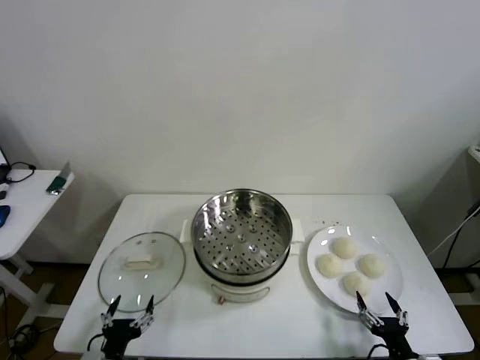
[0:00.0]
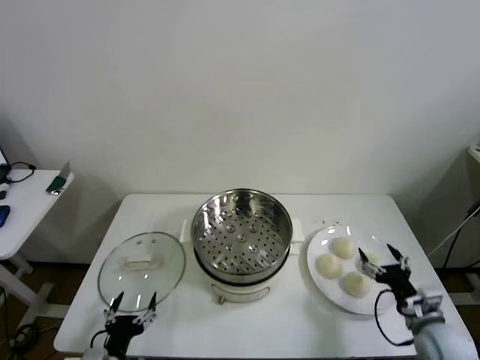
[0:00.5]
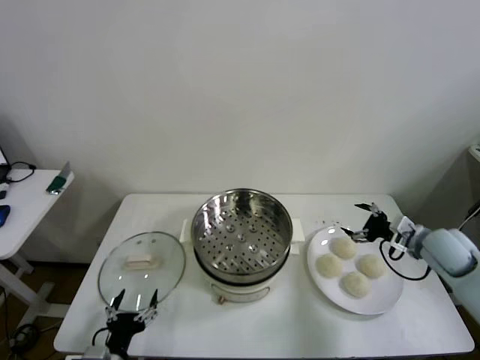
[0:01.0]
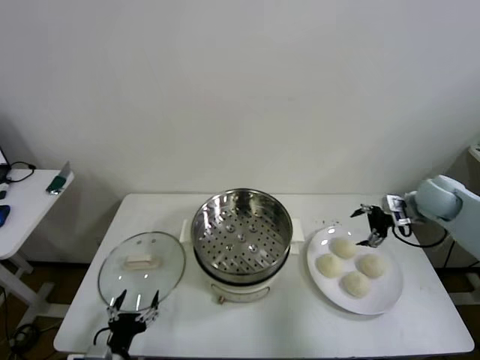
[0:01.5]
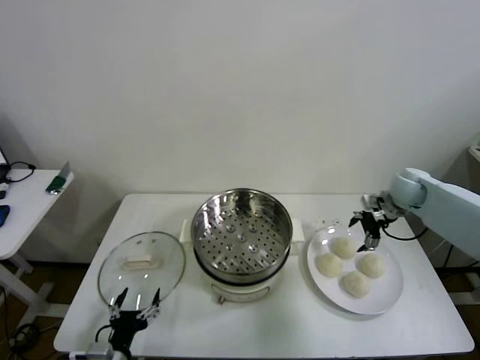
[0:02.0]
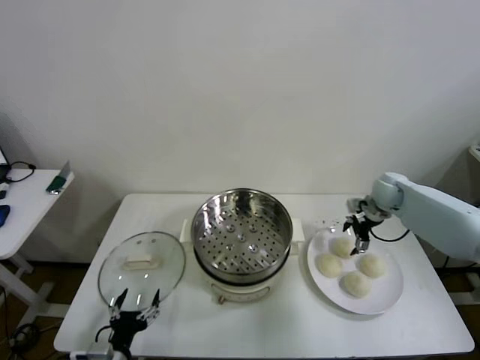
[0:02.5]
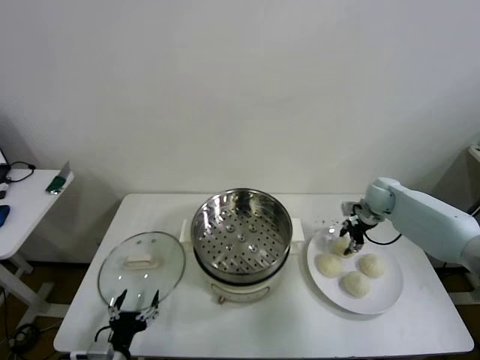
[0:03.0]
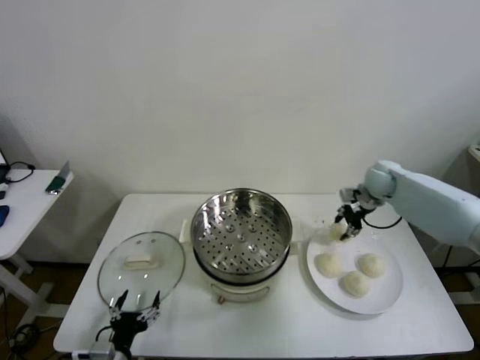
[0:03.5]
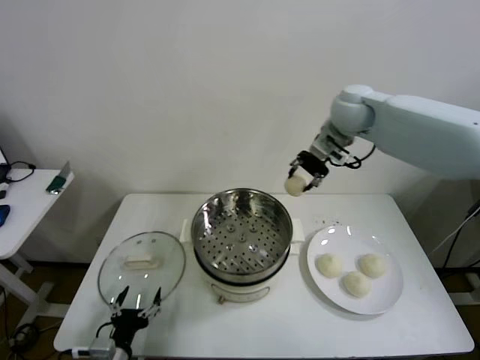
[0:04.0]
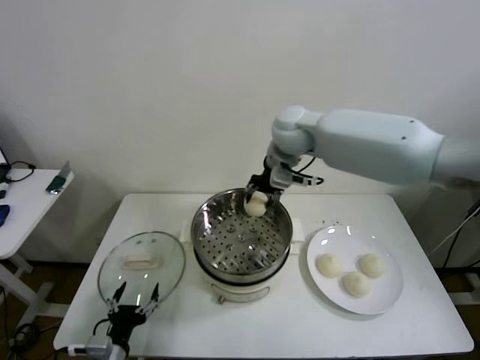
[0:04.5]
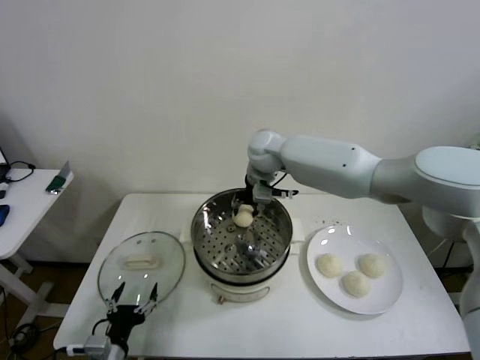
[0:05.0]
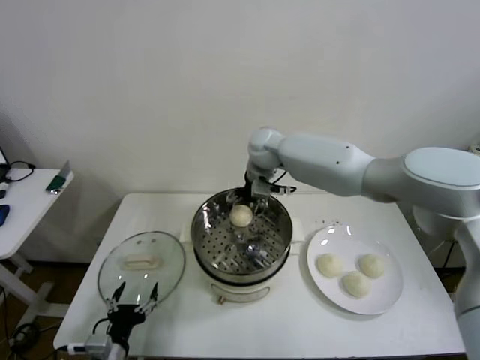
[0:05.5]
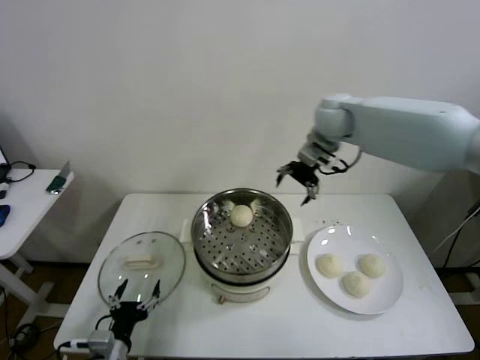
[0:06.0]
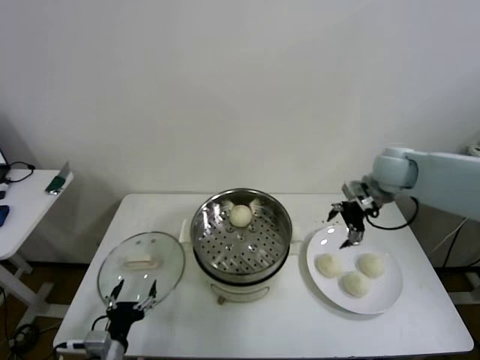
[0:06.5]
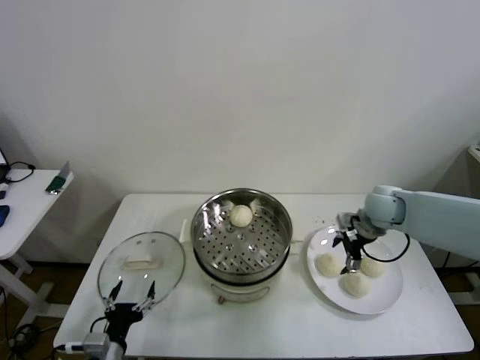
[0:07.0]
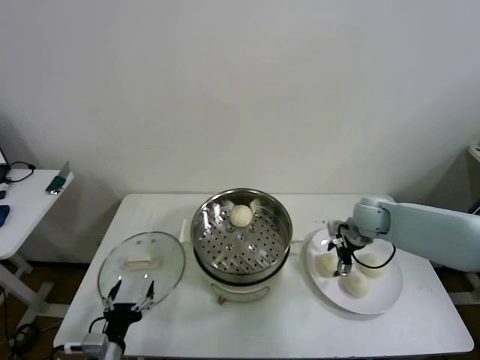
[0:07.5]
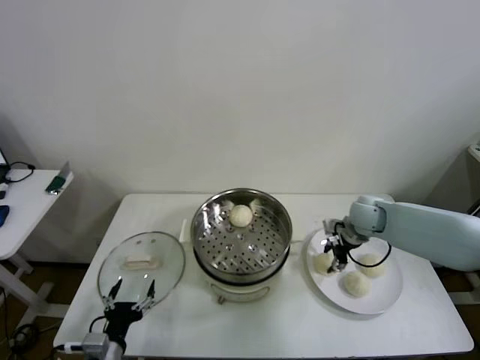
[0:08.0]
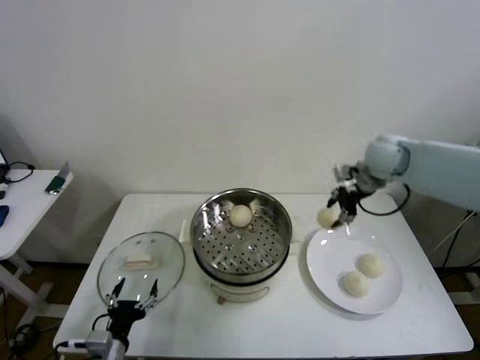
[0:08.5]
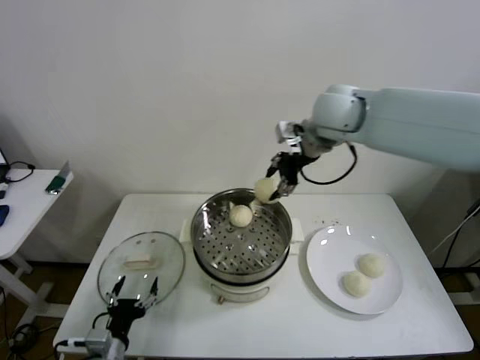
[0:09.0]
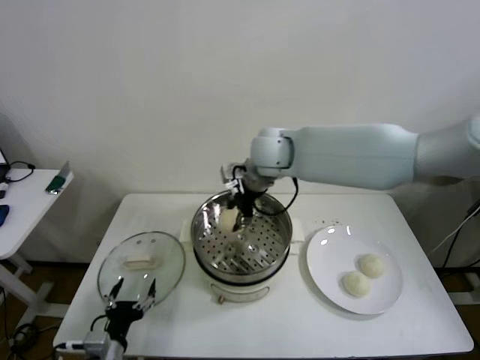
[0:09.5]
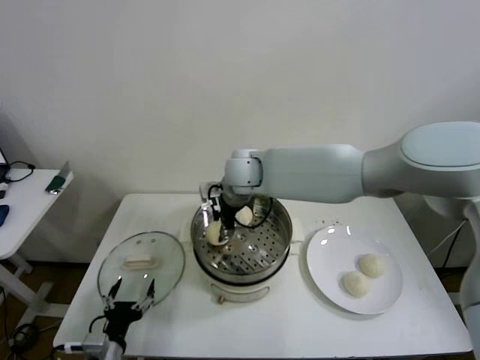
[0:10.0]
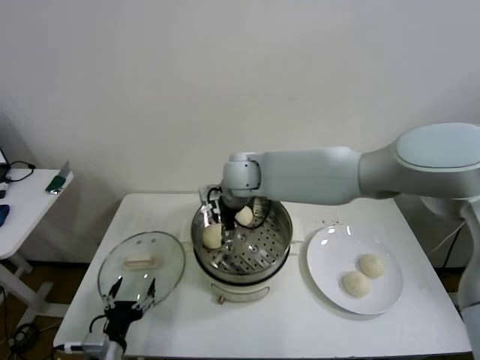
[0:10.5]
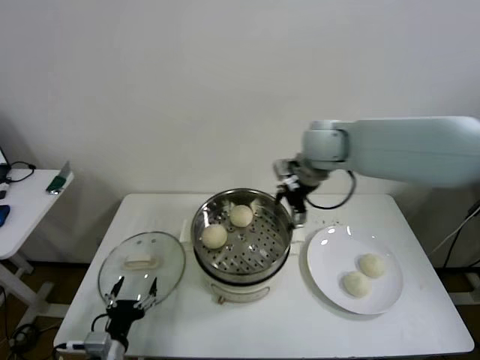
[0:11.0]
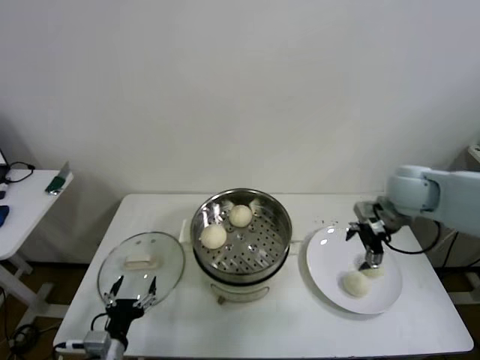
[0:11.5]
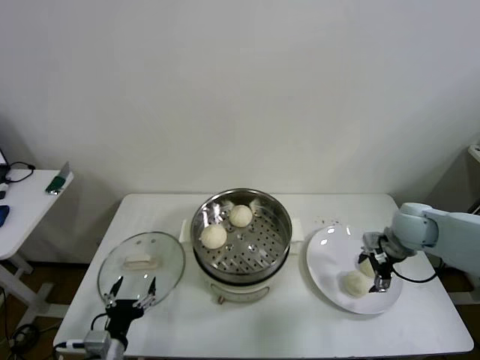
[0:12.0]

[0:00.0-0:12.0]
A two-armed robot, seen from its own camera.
Step, 0:00.0 to 0:02.5: Grasp the baozi in the plate with right gripper.
Step, 0:03.0 to 0:05.5: Place the baozi on the steamer with right gripper.
Step, 0:06.0 to 0:07.5: Grasp the baozi in the plate with right gripper.
Step, 0:08.0 to 0:10.5: Place the baozi on the steamer with right gripper.
0:02.0 to 0:04.0: The right gripper goes roughly 30 cm upward and to the left, and closes its fingers.
0:04.0 to 0:06.0: The right gripper moves some 15 cm to the left and comes back, and opens its fingers.
0:06.0 to 0:08.0: The right gripper heads downward, covering roughly 20 cm, and closes its fingers.
0:08.0 to 0:10.0: The right gripper moves to the left, about 30 cm.
0:10.0 to 0:12.0: The right gripper moves to the right, approximately 40 cm, and opens up.

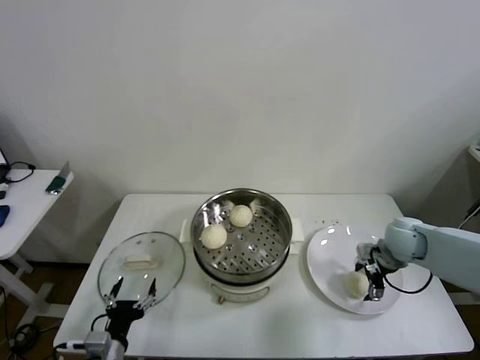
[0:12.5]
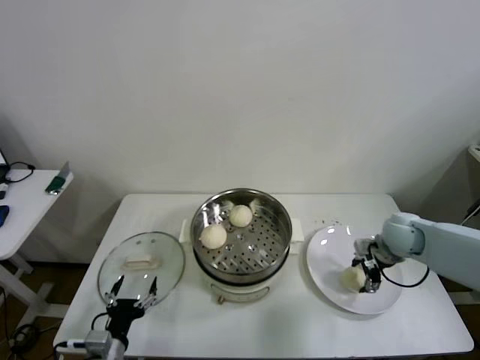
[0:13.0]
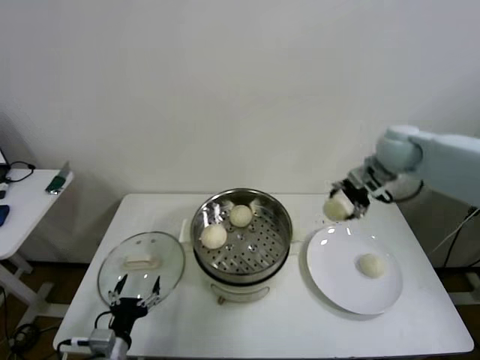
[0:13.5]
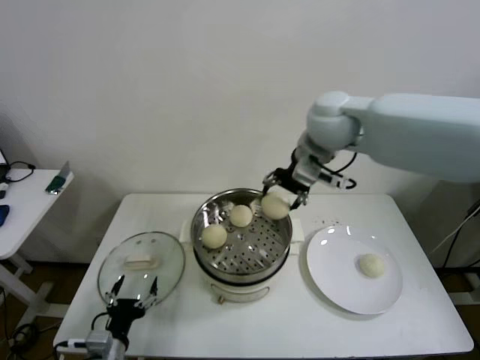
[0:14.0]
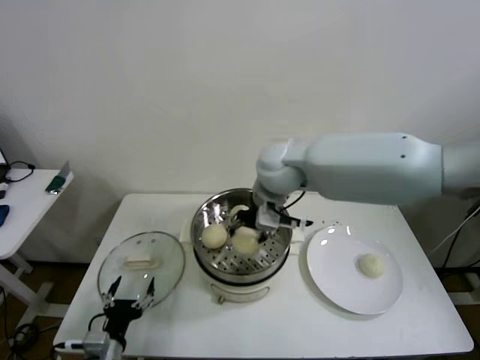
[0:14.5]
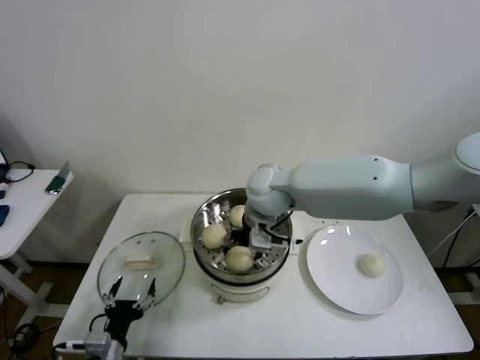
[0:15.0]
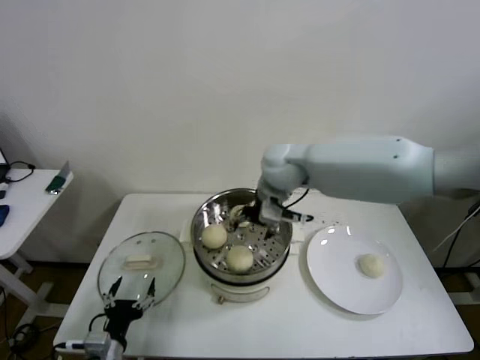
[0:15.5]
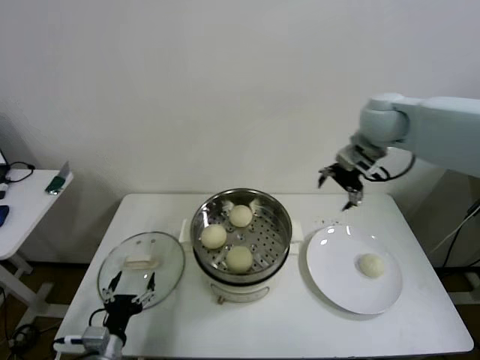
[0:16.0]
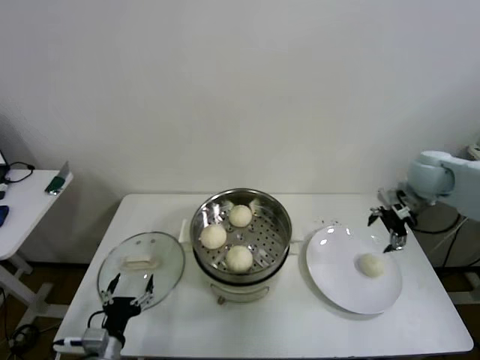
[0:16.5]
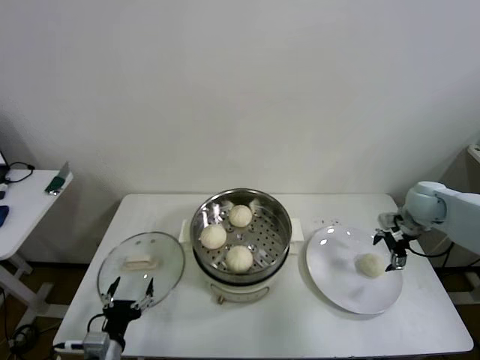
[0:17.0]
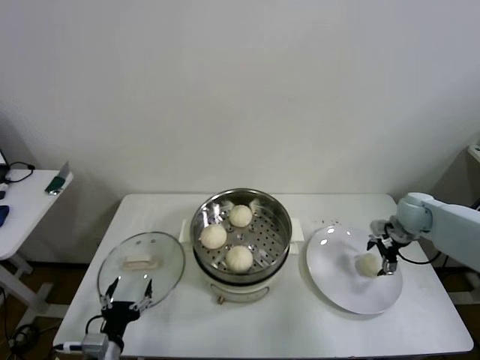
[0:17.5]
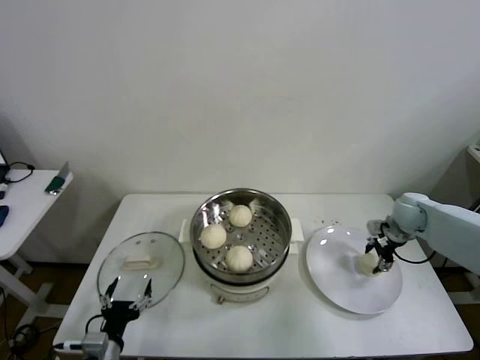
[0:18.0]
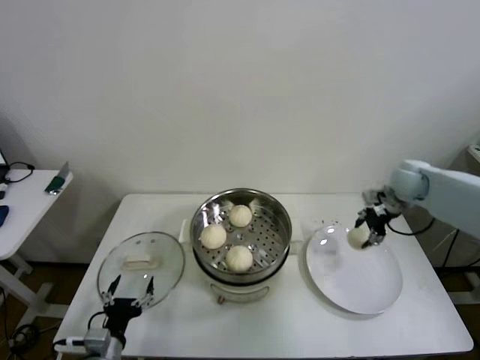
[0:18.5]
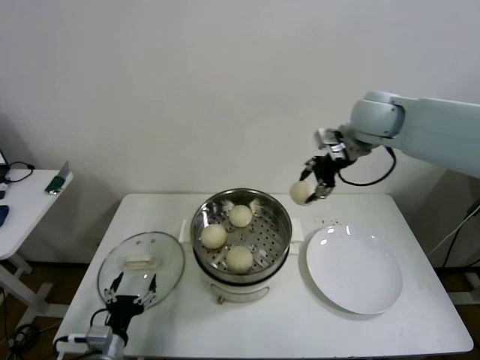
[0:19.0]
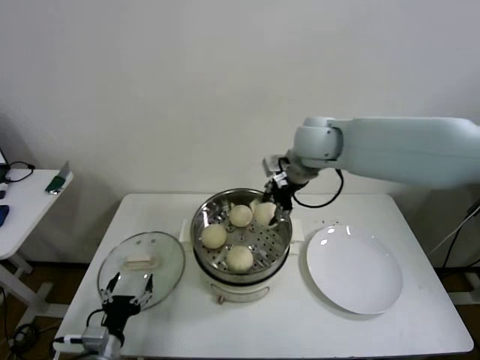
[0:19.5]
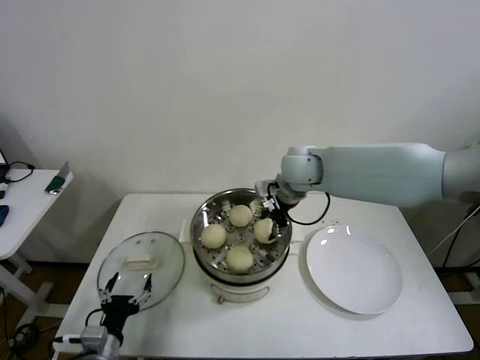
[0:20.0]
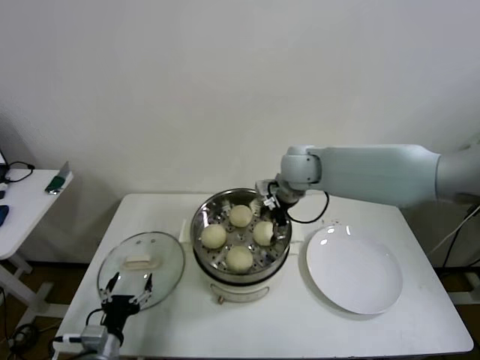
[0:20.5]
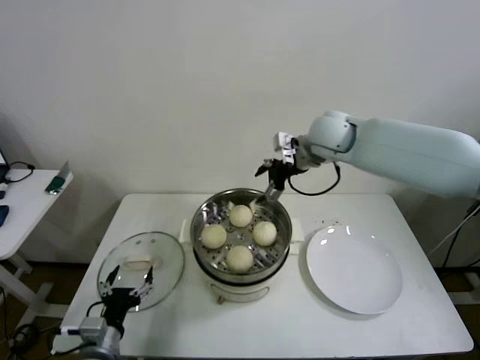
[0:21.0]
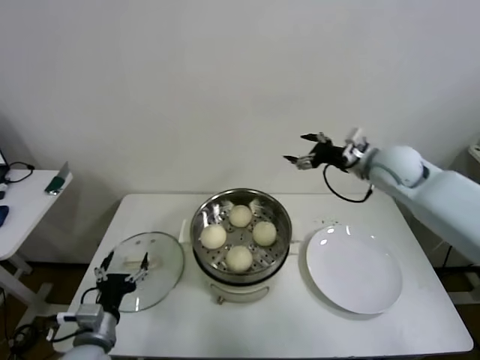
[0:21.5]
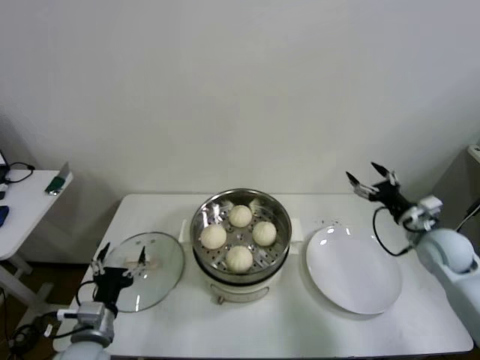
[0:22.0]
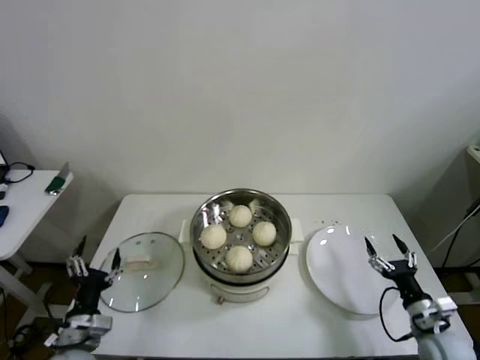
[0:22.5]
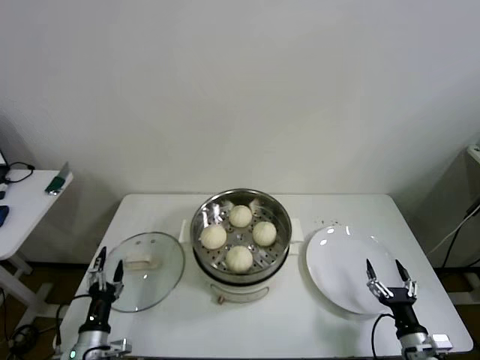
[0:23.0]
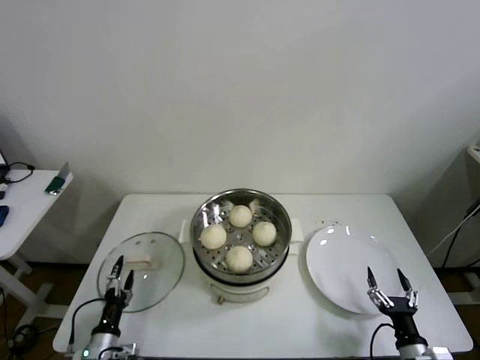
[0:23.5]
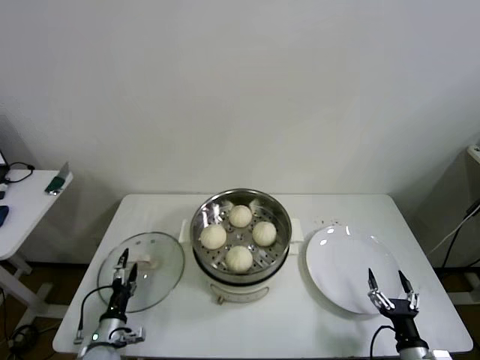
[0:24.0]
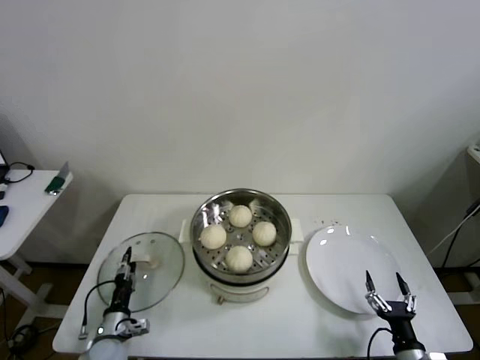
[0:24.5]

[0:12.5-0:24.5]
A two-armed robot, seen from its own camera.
Step, 0:13.0 to 0:15.5: Place the baozi on the steamer with right gripper.
Step, 0:16.0 to 0:18.0: Grasp the baozi in the plate with right gripper.
Step, 0:18.5 to 0:20.5: Place the baozi on the steamer with right gripper.
0:12.5 to 0:14.5: The right gripper shifts about 35 cm to the left and upward.
0:14.5 to 0:16.5: The right gripper goes roughly 35 cm to the right, and opens.
0:16.5 to 0:18.5: The right gripper closes its fingers.
0:18.5 to 0:20.5: The right gripper travels to the left by about 25 cm, and opens its fingers.
0:20.5 to 0:22.5: The right gripper goes roughly 50 cm to the right, backward and downward. Meanwhile the left gripper moves about 5 cm.
0:22.5 to 0:24.5: The left gripper moves downward, some 15 cm, while the right gripper goes some 10 cm backward, to the left and downward.

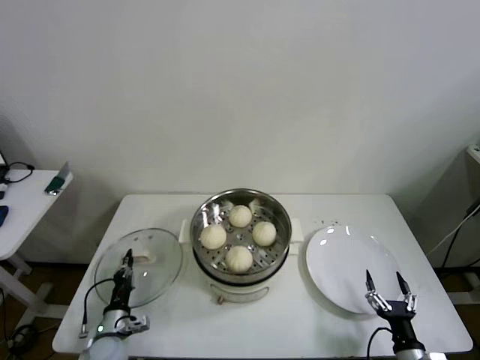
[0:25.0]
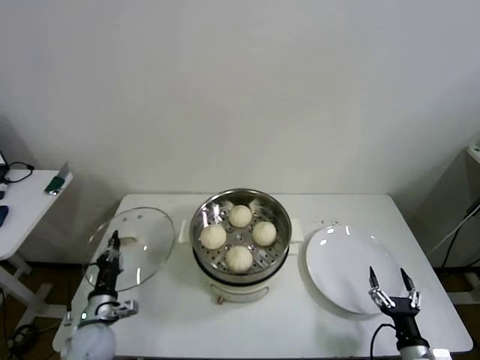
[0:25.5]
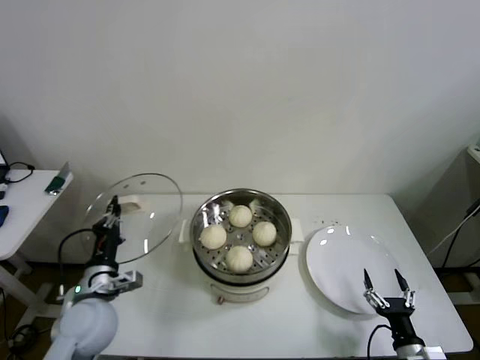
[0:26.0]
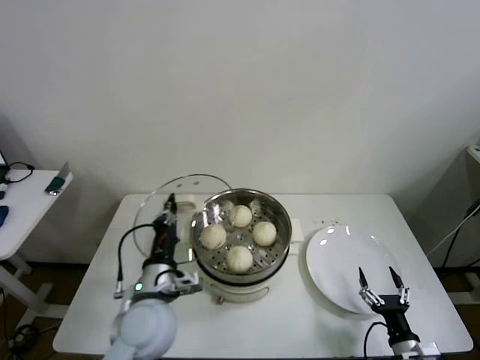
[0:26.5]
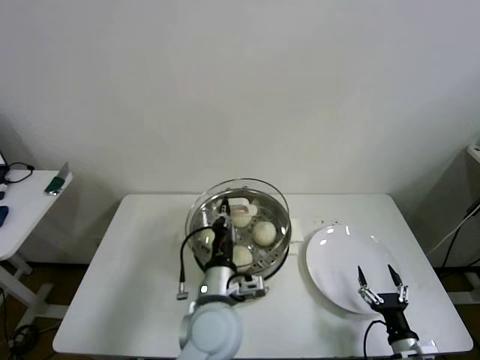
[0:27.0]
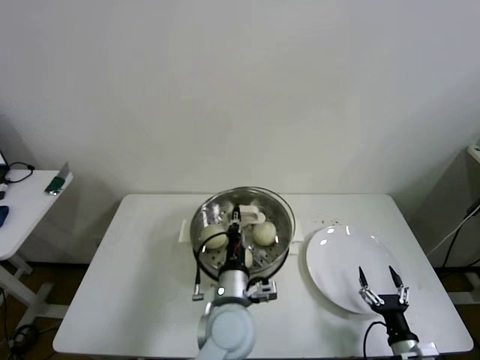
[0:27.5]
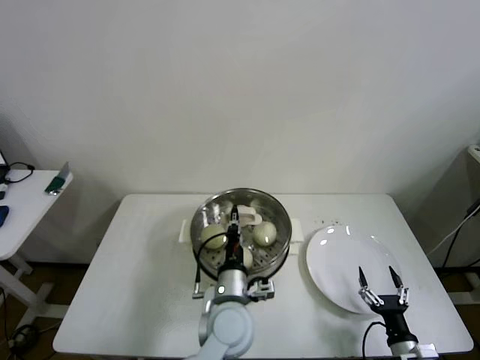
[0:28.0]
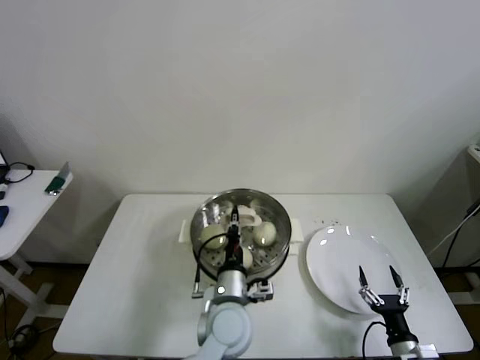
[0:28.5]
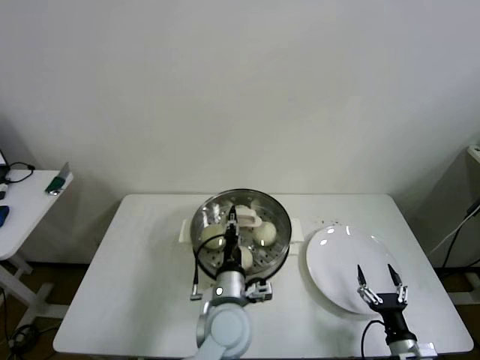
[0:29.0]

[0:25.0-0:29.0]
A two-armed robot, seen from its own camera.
0:25.0 to 0:27.0: The left gripper travels to the right and upward by roughly 35 cm.
0:27.0 to 0:29.0: The left gripper travels downward by some 5 cm.
